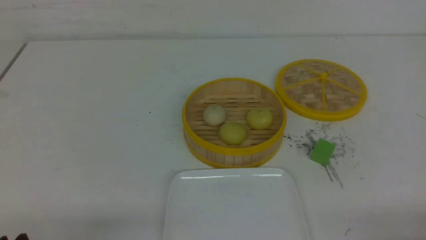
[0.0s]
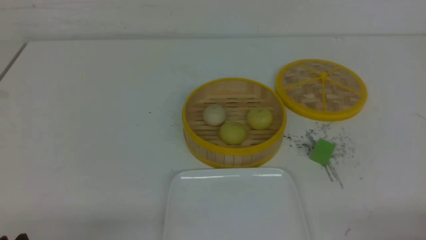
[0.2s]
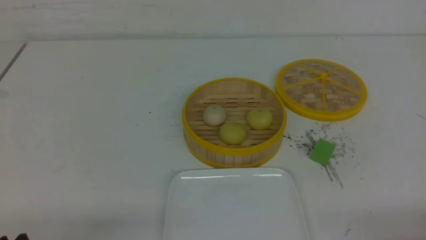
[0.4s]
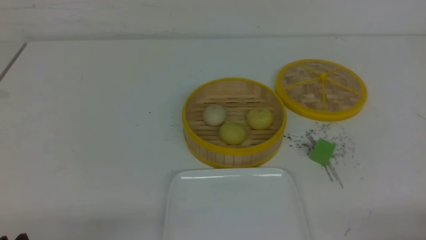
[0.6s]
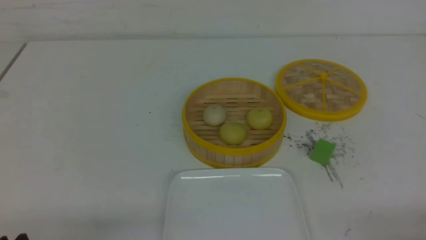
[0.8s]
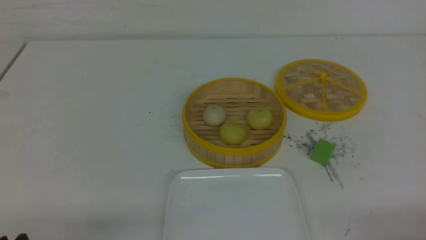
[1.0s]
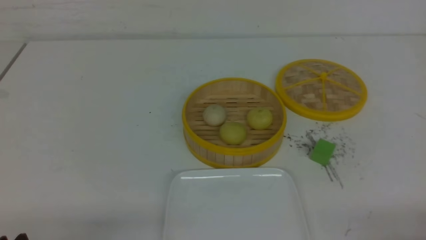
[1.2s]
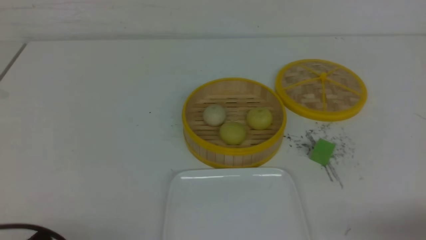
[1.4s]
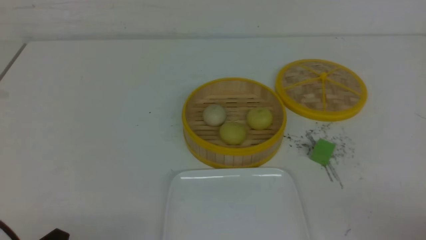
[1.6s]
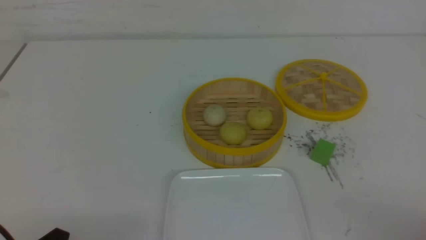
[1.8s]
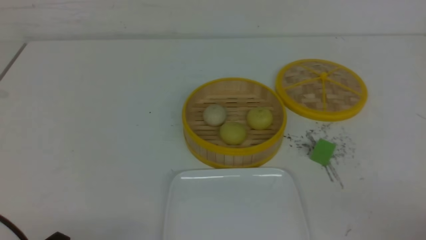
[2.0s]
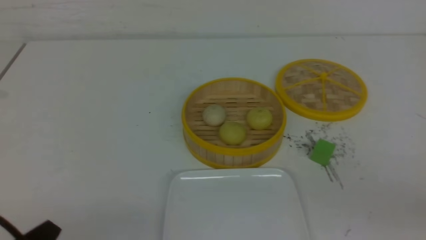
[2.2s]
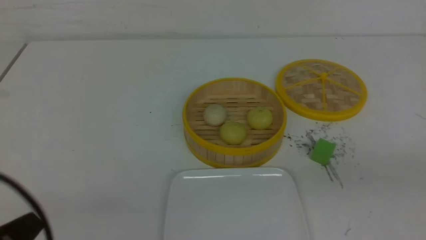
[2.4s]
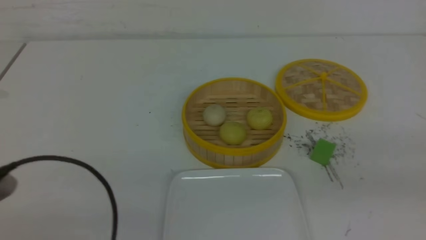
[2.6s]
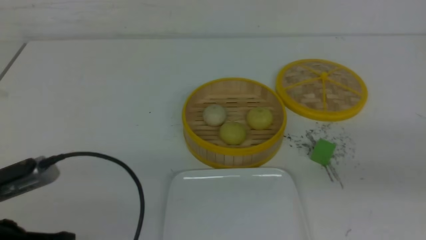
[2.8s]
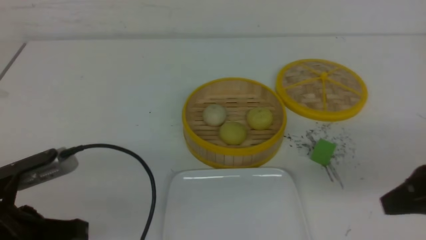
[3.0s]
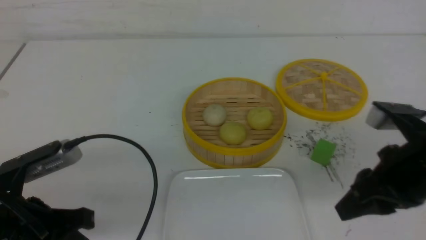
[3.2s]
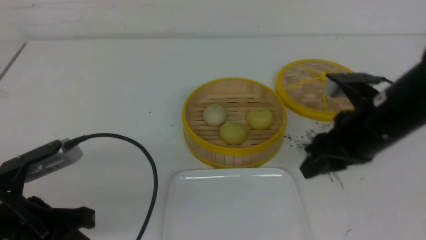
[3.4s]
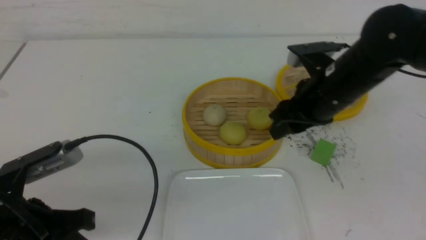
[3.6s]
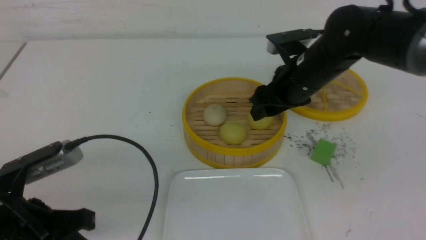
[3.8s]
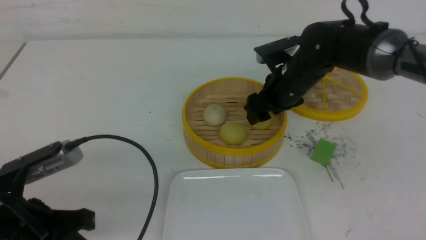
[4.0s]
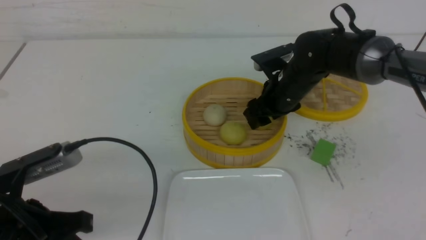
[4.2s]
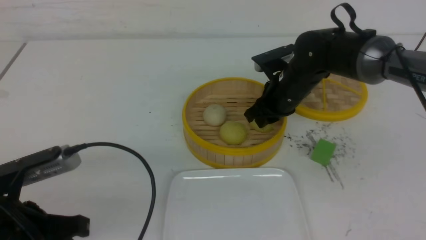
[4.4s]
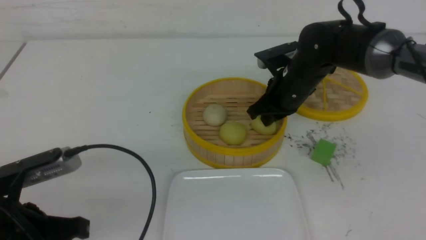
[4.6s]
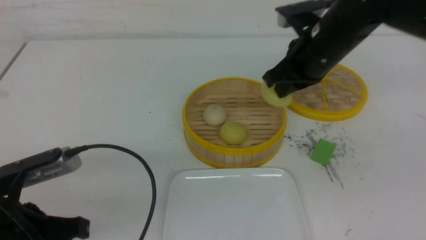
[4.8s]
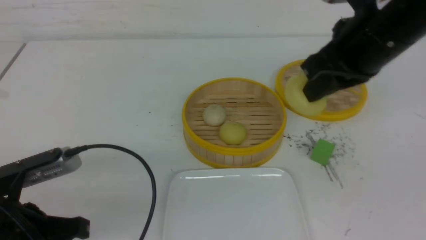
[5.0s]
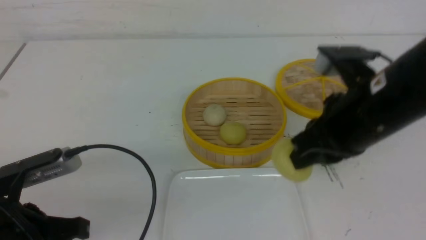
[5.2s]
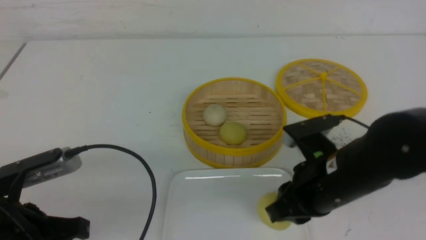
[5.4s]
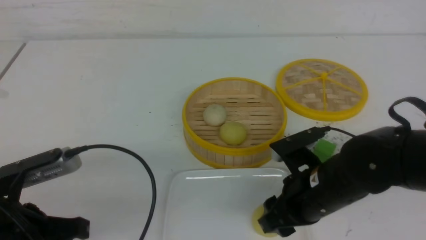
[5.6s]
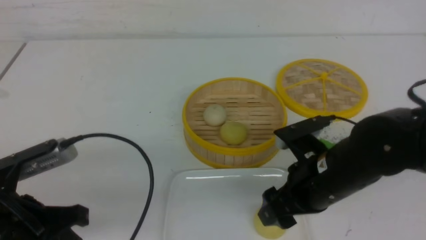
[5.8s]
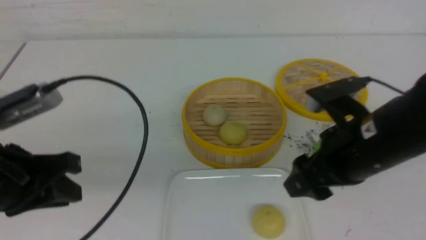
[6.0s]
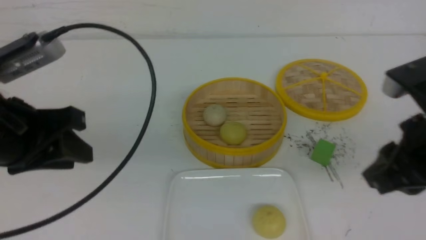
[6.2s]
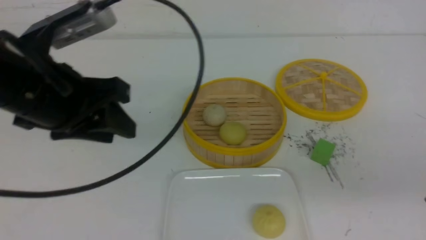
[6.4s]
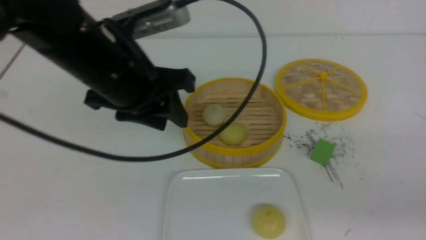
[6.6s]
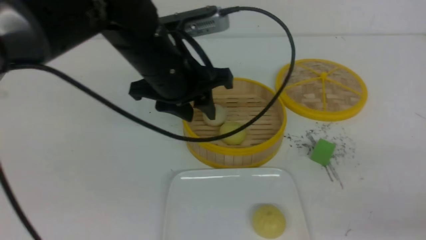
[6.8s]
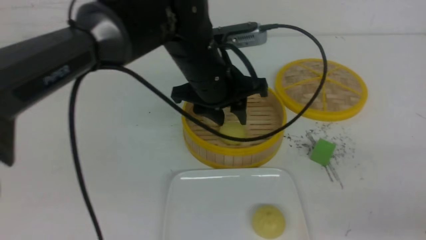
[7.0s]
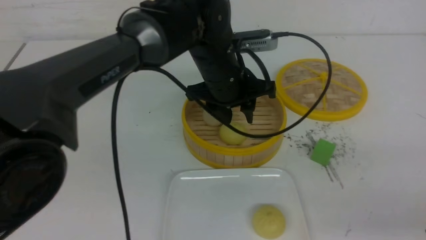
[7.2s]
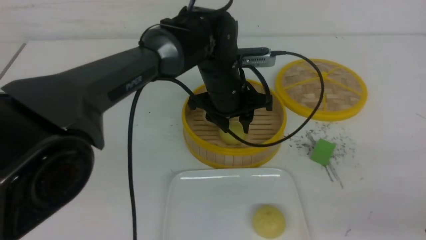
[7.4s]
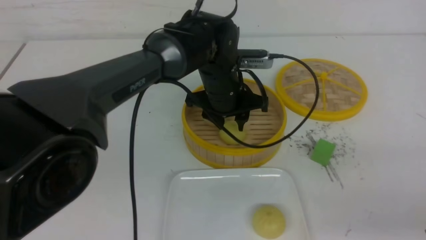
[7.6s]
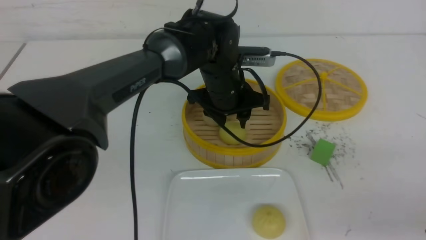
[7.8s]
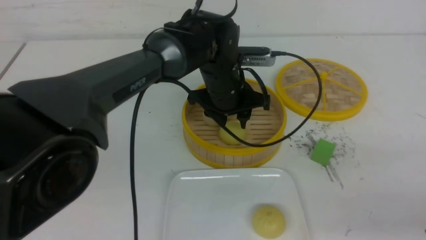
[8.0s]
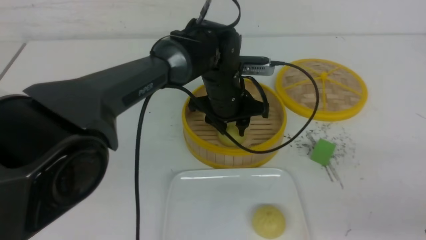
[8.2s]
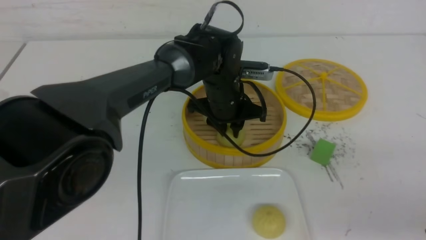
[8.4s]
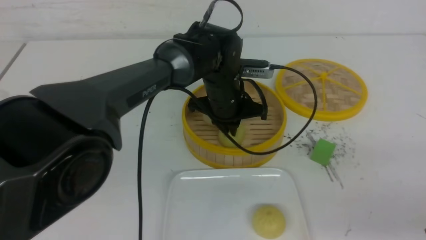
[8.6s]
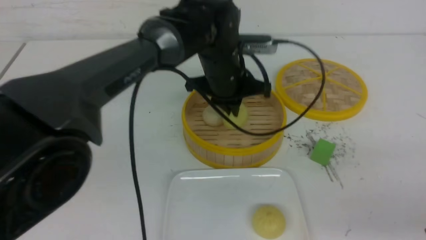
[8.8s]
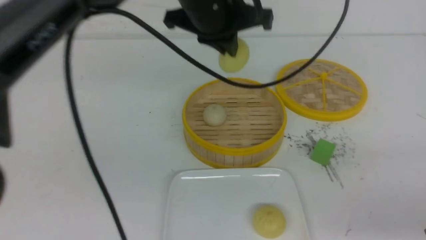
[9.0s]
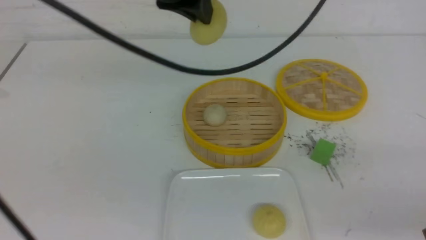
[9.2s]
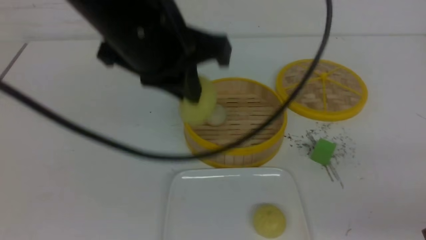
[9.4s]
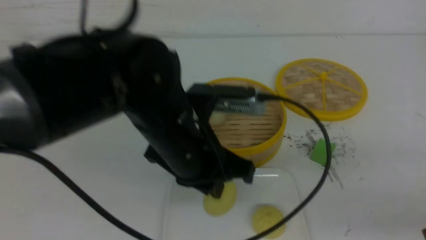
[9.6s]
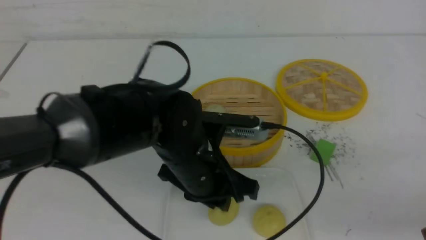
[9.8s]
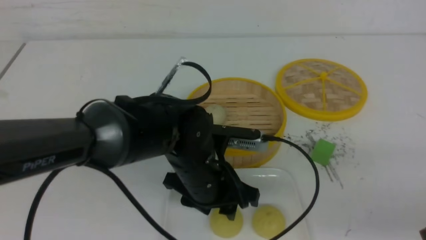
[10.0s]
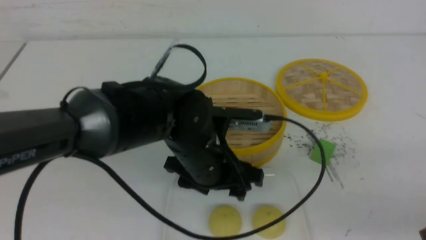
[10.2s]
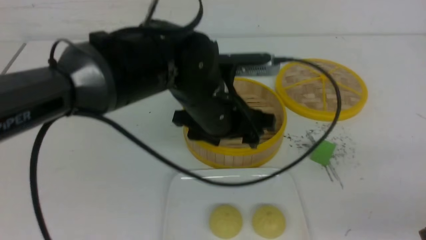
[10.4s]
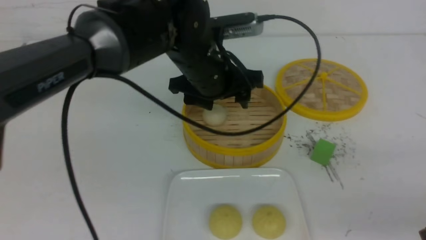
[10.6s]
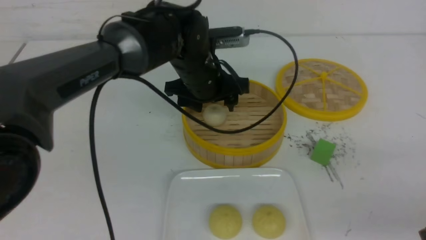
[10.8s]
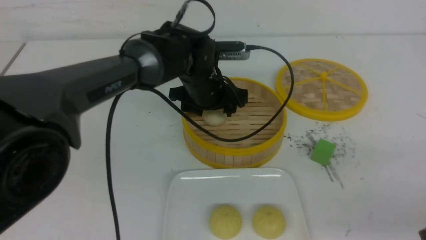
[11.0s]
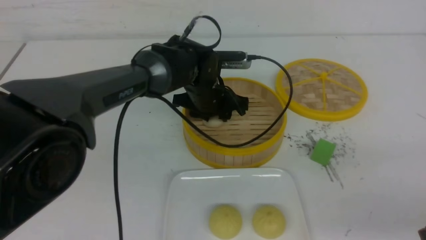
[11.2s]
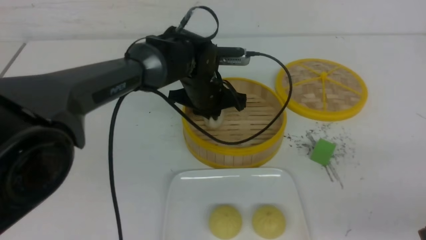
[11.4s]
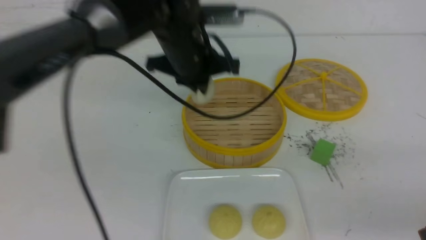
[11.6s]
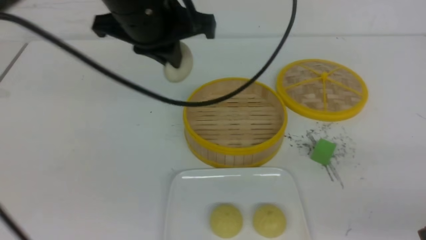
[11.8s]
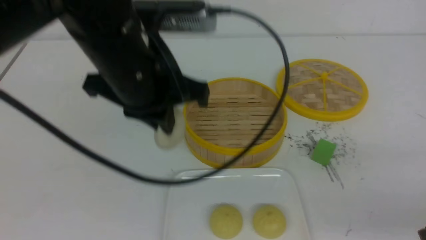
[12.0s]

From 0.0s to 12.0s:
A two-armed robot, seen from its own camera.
Step, from 0.0s to 4.4s: use the right arm to grab the steamed stuffed bun that is closest to it.
Step, from 4.6s to 5.8s: use the right arm to put the steamed stuffed bun into the plate.
Step, from 6.0s to 8.6s: use the left arm to grab the steamed stuffed bun that is closest to it.
Step, from 8.8s to 10.0s: use the left arm to put the steamed stuffed bun into the plate.
Step, from 10.2s to 11.4s: use the left arm to grab the steamed stuffed bun that is closest to it.
From 1.6s to 3.0s: The left gripper shifts about 10 cm forward and upward, and closes up, while the right gripper travels forward, upward and to the left by approximately 15 cm.
From 3.0s to 4.4s: The right gripper goes roughly 25 cm forward and to the left, and opens and closes again.
From 4.4s to 6.0s: The left gripper shifts approximately 5 cm upward. The right gripper shifts approximately 20 cm backward, and opens up.
From 6.0s to 7.6s: The left gripper goes about 30 cm to the right and forward, while the right gripper moves backward and to the right, approximately 15 cm, and closes up.
From 7.6s to 9.0s: The left gripper moves upward, approximately 15 cm, and closes its fingers.
From 9.0s to 10.4s: The left gripper goes some 10 cm downward, and opens.
From 10.4s to 12.0s: The left gripper is displaced upward and to the left by some 10 cm, and closes its fingers.

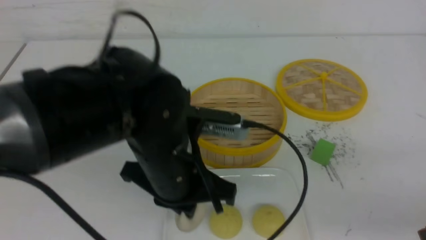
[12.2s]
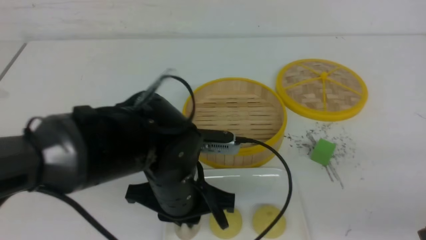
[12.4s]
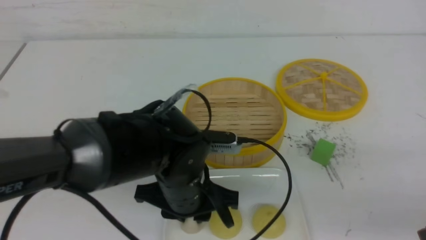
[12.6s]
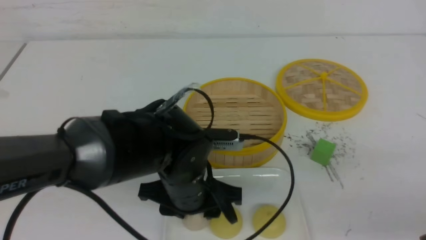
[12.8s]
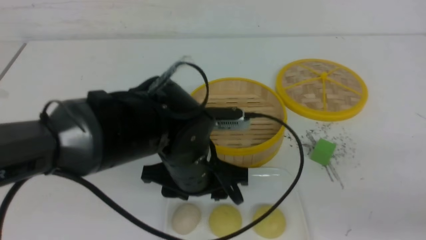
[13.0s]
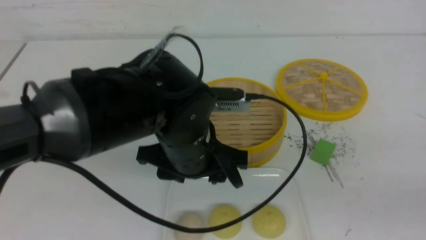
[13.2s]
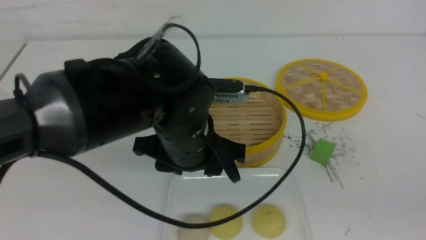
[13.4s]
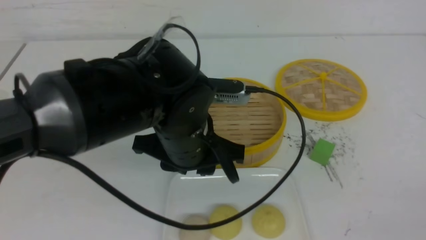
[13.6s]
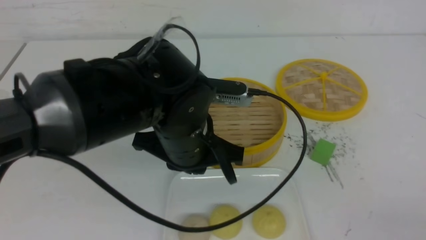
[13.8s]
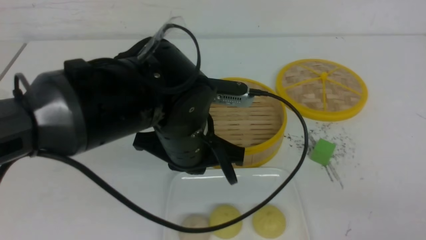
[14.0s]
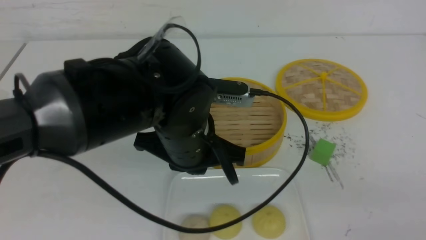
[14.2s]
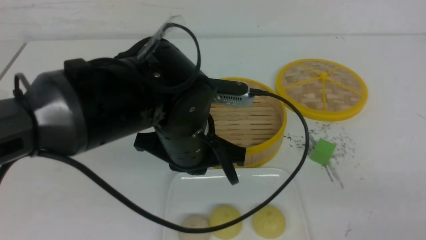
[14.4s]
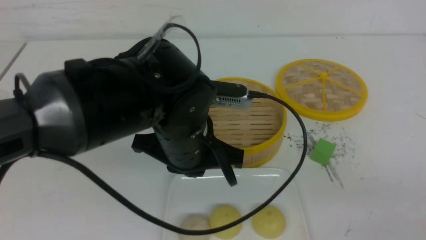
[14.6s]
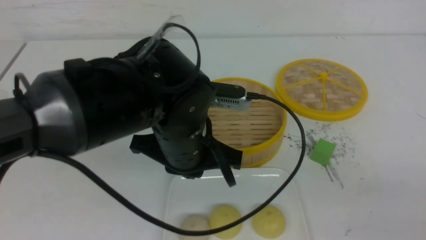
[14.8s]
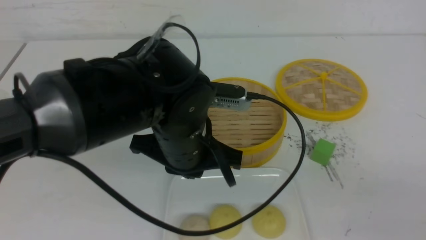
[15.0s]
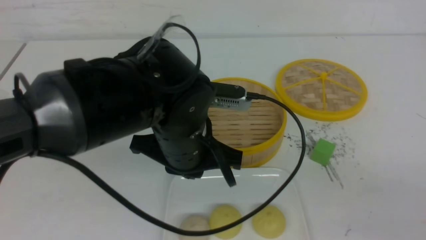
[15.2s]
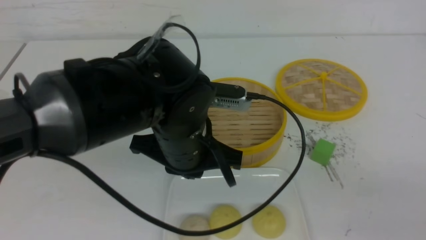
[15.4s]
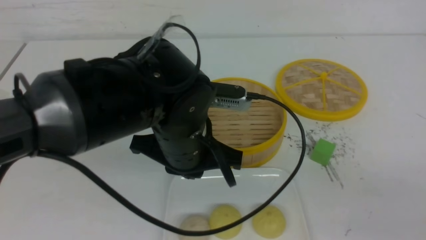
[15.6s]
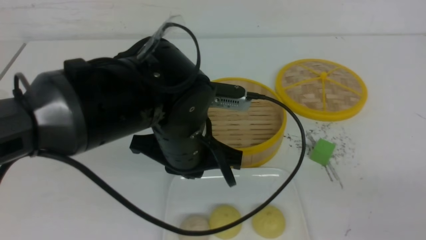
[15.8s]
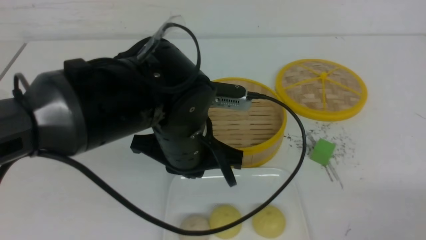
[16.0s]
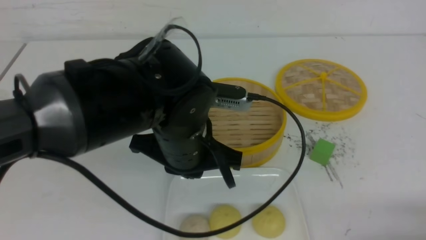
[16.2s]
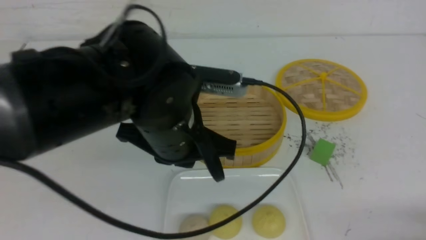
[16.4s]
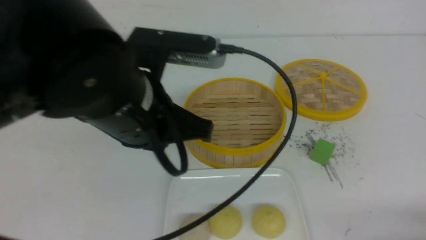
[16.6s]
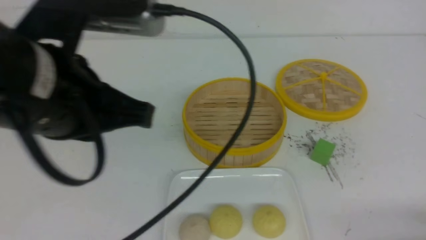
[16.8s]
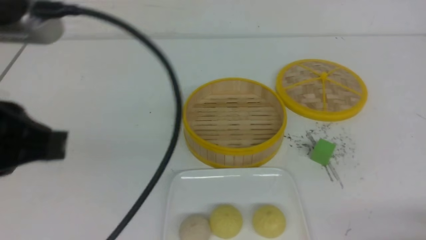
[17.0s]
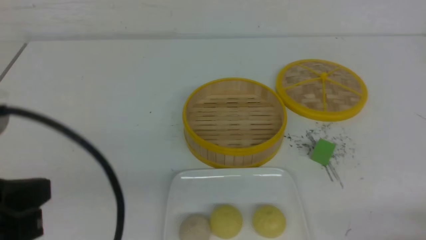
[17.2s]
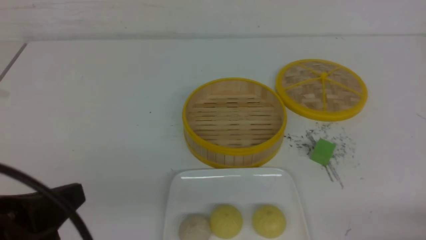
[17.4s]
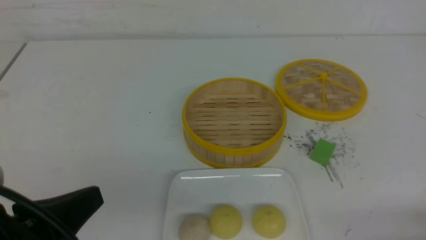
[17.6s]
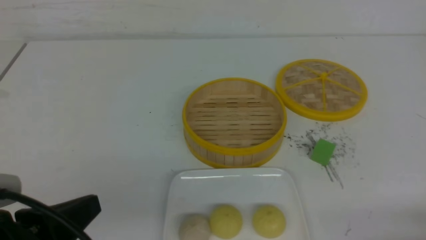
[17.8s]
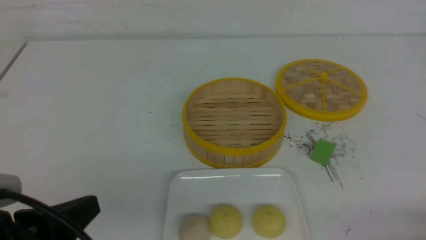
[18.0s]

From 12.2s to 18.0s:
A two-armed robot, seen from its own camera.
From 12.2s to 13.6s: The right gripper goes approximately 15 cm backward, upward and to the right. Meanwhile the left gripper opens, then closes once more.
From 13.6s to 15.0s: The right gripper goes some 10 cm downward and forward. Meanwhile the left gripper closes.
From 15.0s to 16.6s: The left gripper heads upward and to the left, covering about 10 cm; the right gripper goes roughly 10 cm downward.
From 16.6s to 18.0s: The left gripper shifts some 20 cm to the left, backward and downward.
